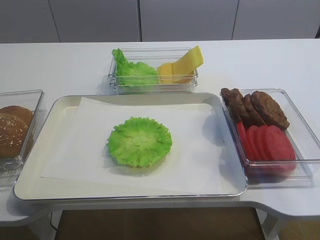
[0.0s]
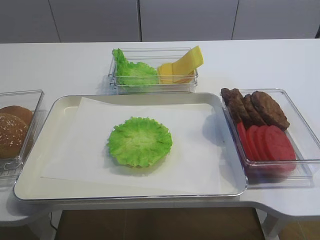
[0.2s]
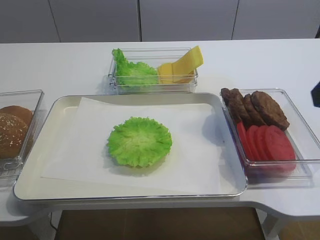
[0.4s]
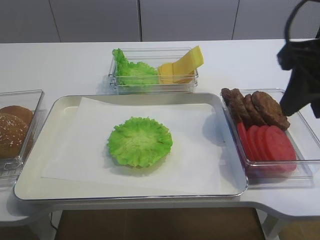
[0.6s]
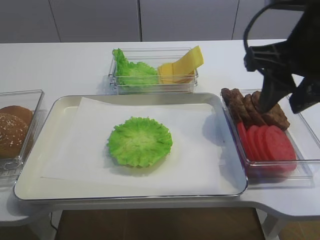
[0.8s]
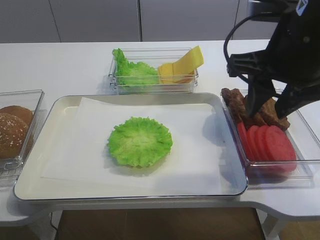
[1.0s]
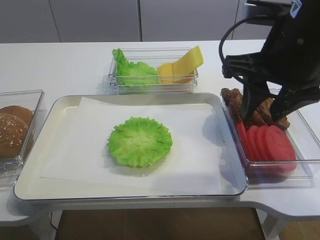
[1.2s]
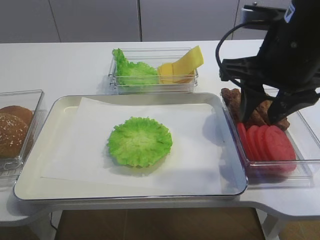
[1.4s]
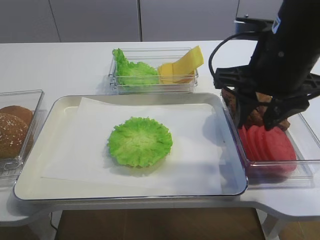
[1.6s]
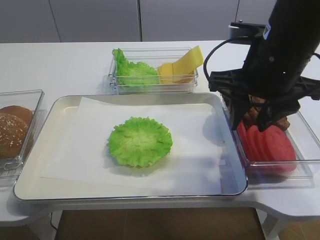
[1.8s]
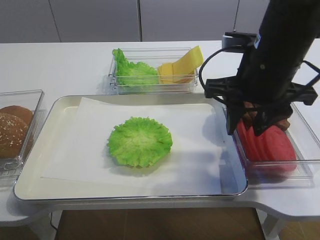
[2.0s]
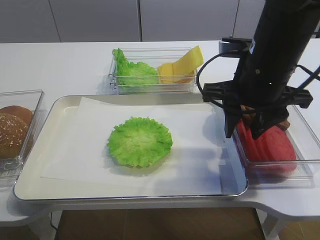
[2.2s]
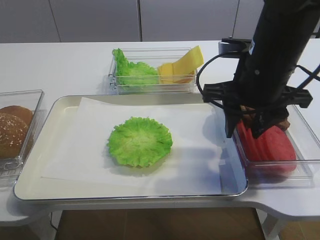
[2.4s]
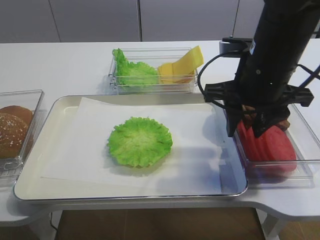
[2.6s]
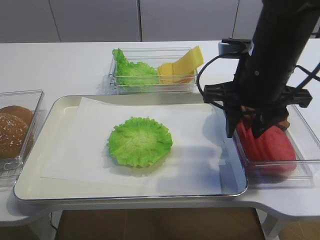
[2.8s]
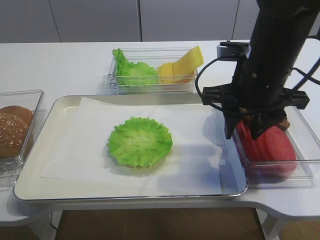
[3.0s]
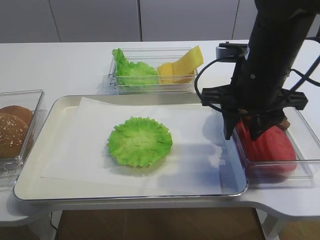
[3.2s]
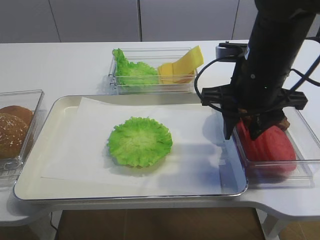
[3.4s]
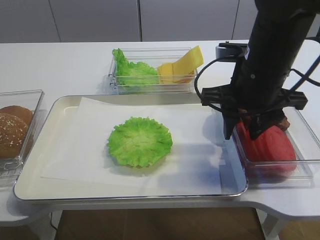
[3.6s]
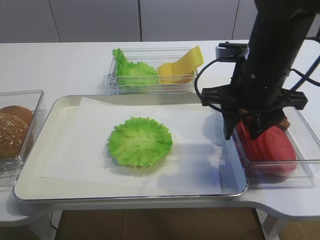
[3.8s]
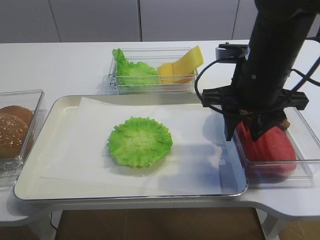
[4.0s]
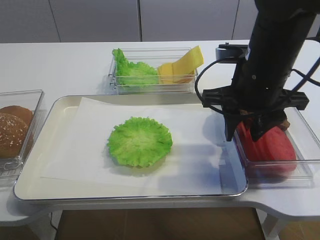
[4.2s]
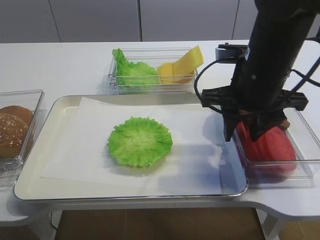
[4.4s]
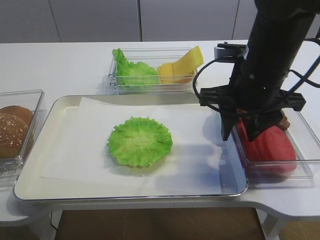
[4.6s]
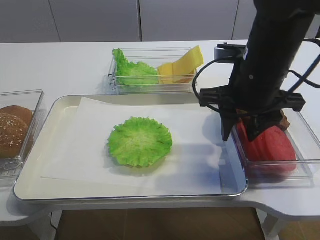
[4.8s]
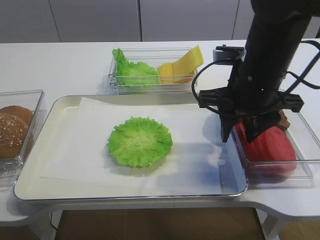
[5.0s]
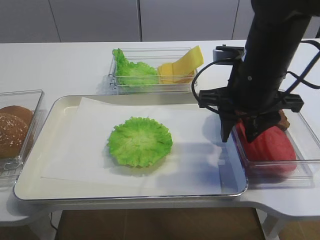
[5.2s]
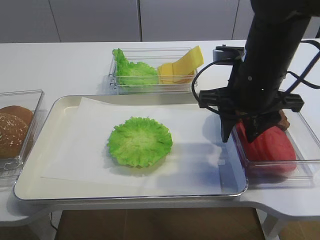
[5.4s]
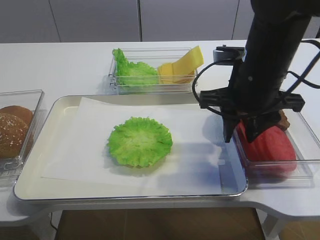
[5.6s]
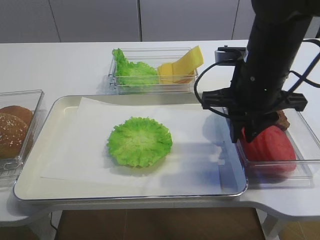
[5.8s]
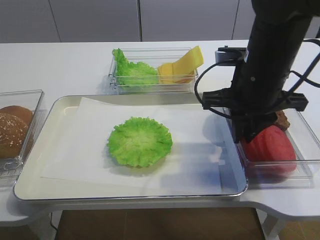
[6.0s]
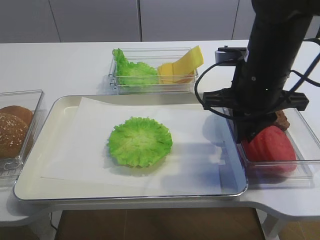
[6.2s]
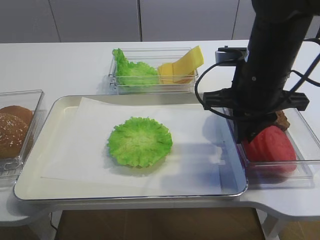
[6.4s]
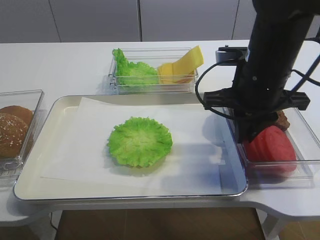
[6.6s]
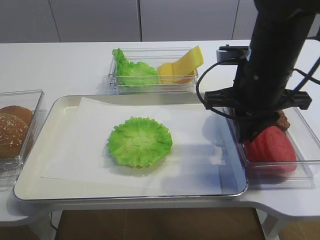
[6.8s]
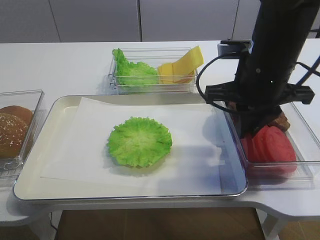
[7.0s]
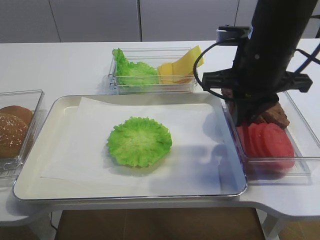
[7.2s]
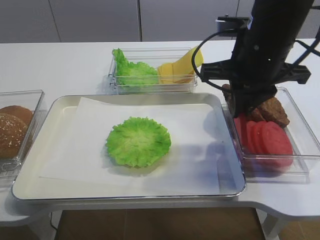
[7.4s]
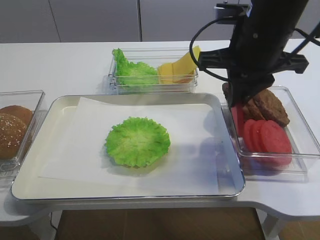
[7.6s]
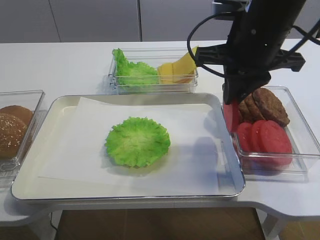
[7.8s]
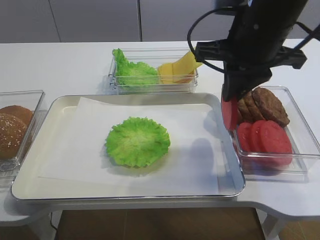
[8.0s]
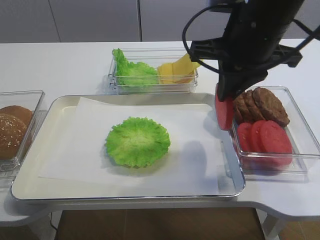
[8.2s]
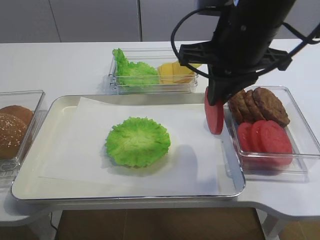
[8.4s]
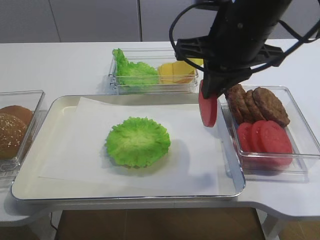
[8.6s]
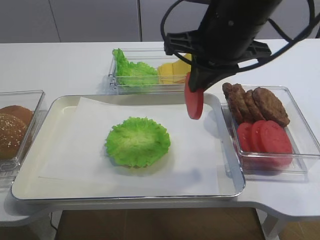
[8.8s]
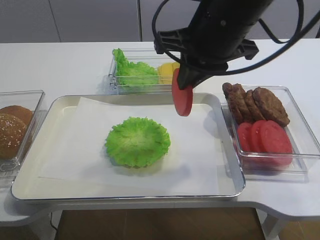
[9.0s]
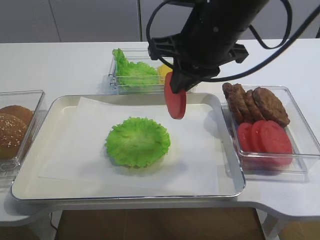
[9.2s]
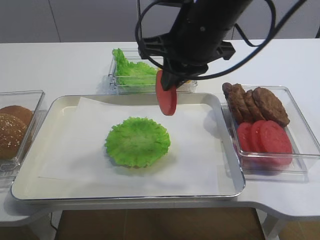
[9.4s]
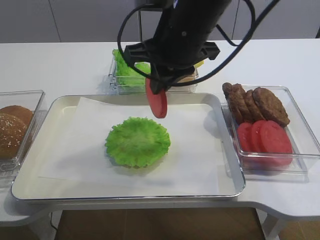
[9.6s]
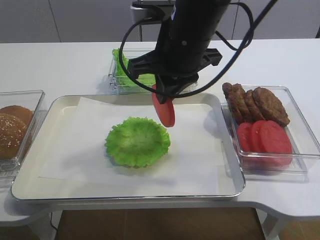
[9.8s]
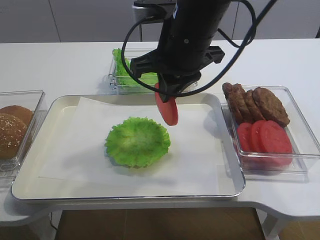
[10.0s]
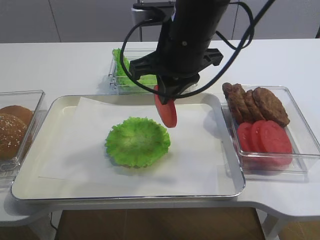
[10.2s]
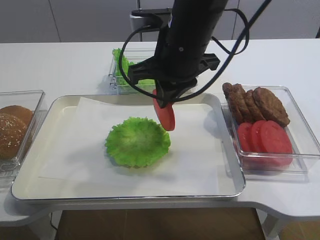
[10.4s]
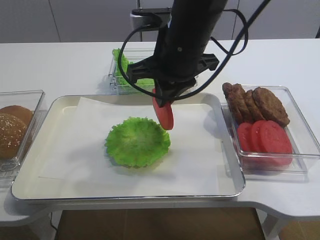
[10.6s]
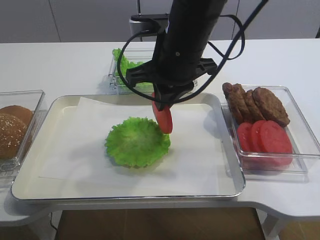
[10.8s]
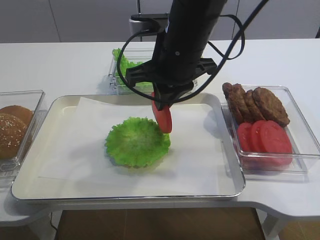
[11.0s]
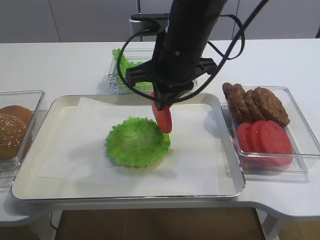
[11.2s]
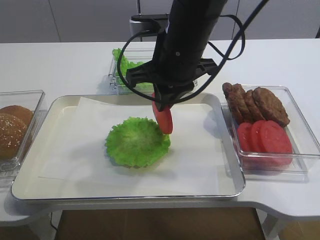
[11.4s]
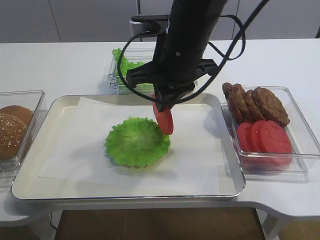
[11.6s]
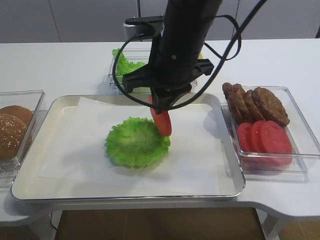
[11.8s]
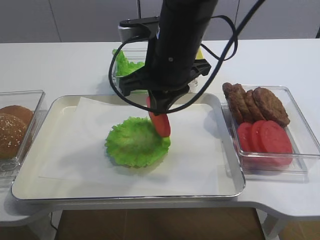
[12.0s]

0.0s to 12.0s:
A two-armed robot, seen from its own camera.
Step, 0.0s to 7.4s: Pick up the tomato slice with the right gripper.
0.0s to 1.6s: The right gripper travels forward and to the left by roughly 20 cm.
1.6s to 3.0s: The right gripper moves some 5 cm.
3.0s to 4.4s: Both grippers stay about where they are.
4.4s to 6.0s: The right gripper closes its fingers.
6.0s to 7.6s: The right gripper travels upward by about 5 cm.
7.6s to 9.0s: The right gripper changes place by approximately 5 cm.
9.0s to 10.4s: The right gripper shifts by some 5 cm.
10.4s to 12.0s: The grippers make only small movements.

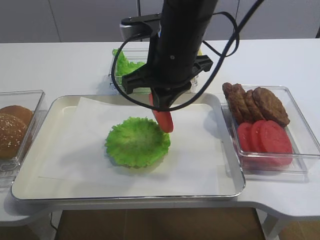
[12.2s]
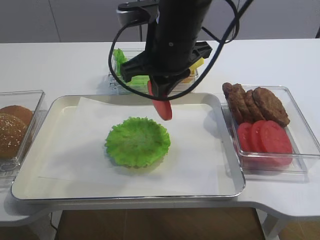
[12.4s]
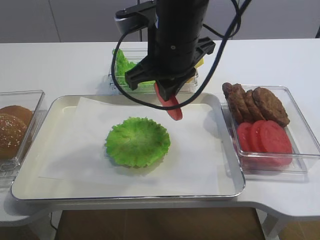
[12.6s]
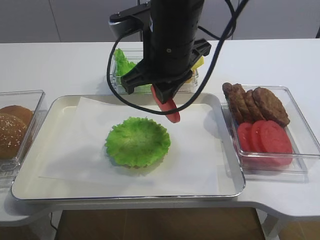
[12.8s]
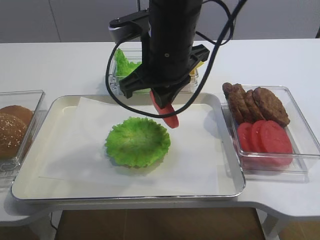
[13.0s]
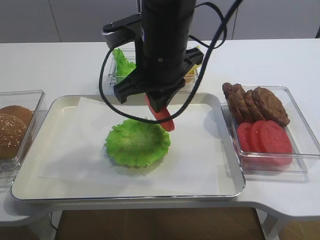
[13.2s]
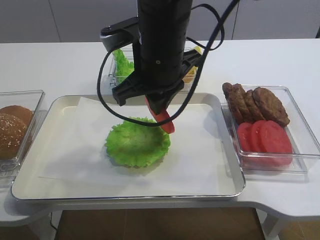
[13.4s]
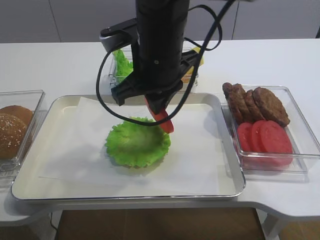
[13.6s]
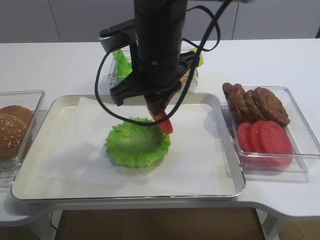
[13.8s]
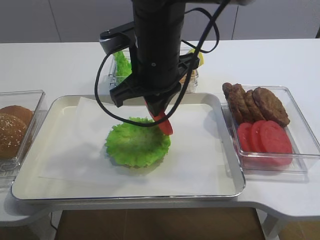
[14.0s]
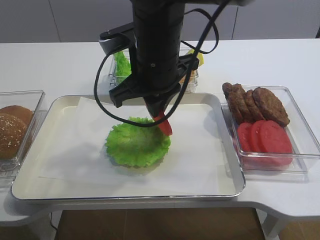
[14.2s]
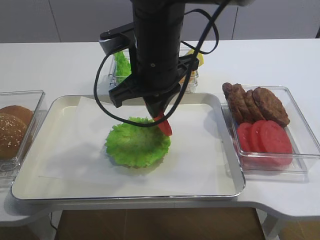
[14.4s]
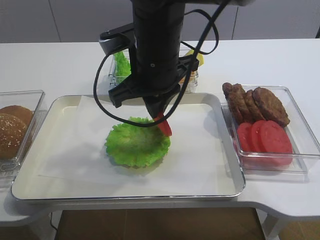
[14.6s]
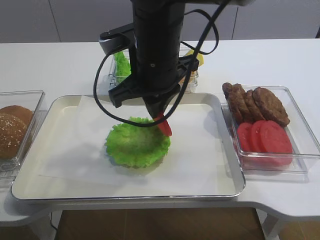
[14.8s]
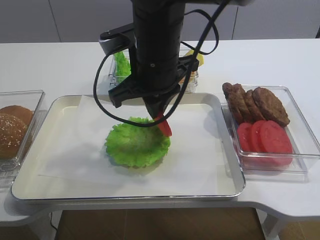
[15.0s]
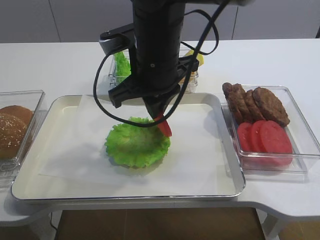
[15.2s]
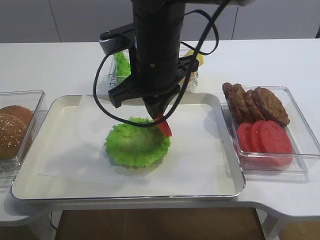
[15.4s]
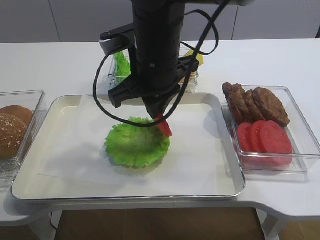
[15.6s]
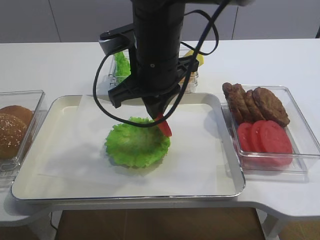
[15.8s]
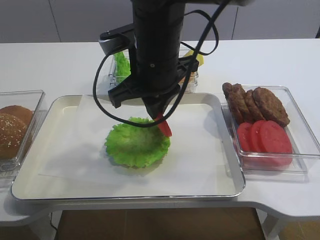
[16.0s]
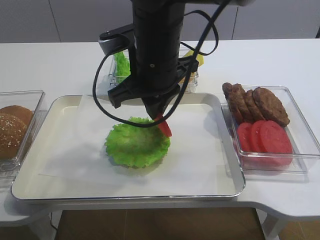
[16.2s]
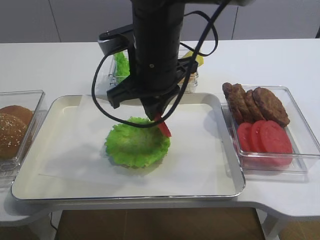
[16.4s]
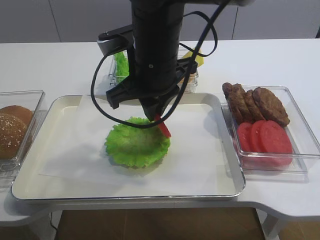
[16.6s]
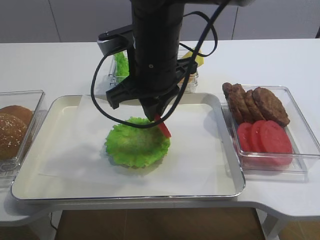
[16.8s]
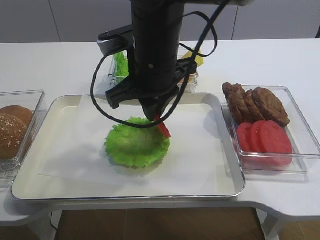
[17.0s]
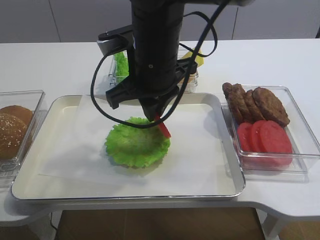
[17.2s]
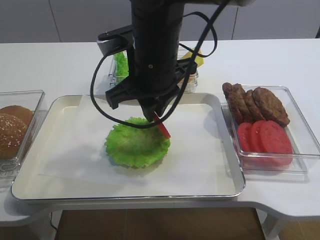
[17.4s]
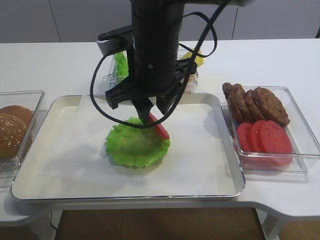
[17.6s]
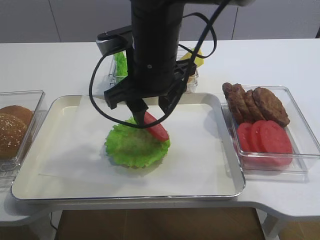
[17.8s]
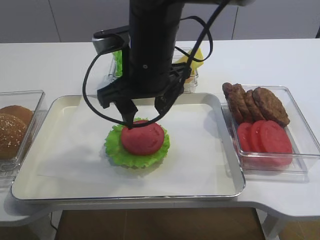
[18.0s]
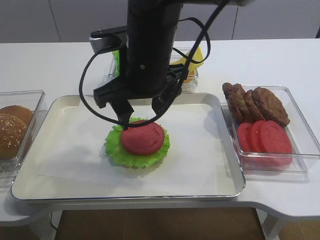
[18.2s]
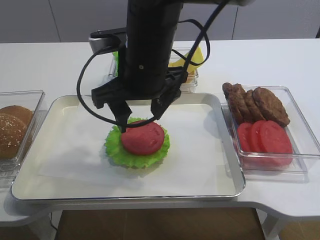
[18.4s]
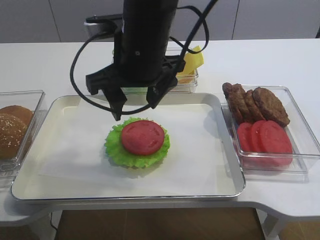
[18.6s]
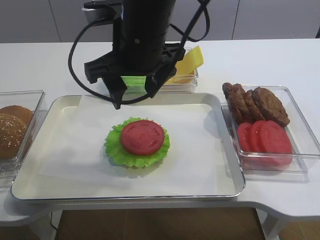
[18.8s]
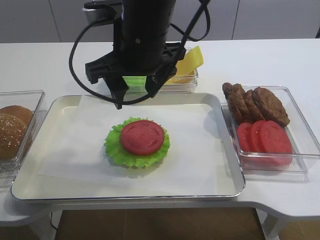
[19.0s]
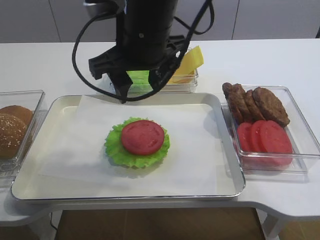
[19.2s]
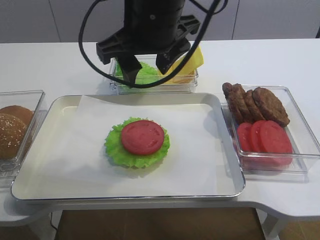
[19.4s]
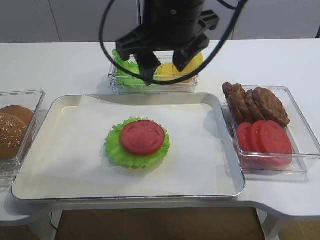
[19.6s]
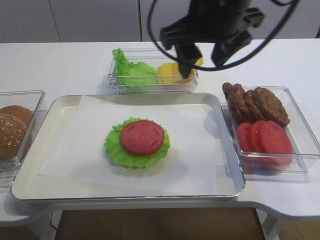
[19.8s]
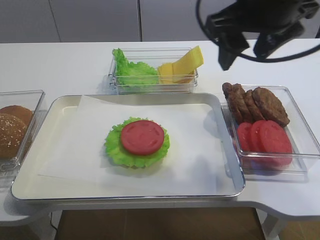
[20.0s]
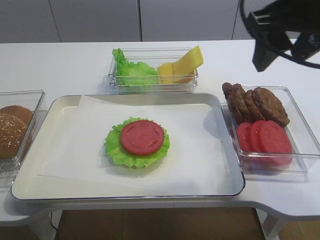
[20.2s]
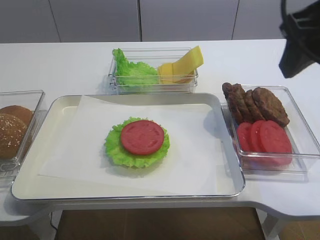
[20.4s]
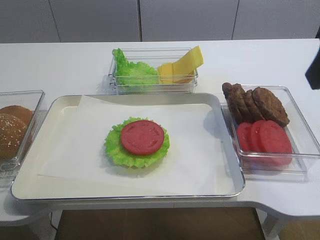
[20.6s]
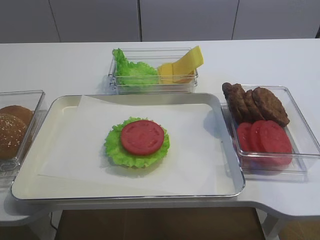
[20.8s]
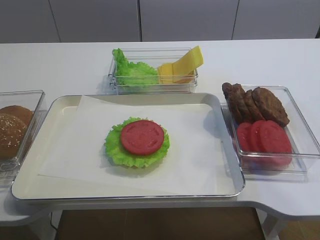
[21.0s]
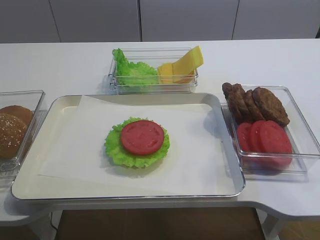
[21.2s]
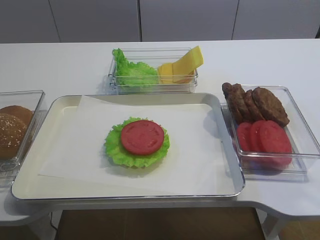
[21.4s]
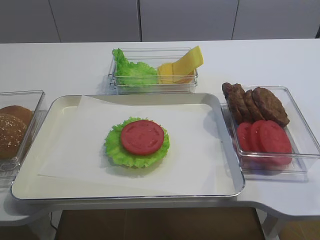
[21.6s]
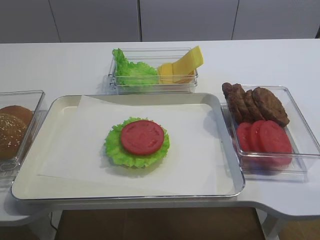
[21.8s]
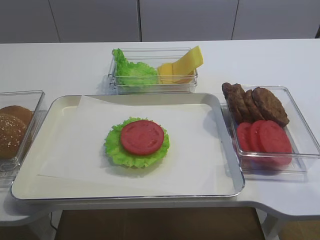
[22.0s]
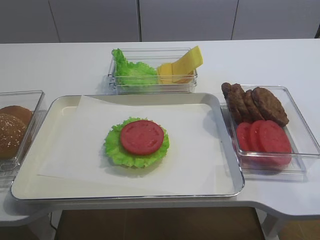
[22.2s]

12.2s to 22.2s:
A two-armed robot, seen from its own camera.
Step, 12.2s to 18.0s: Place the tomato slice on the lettuce leaf with the right gripper.
12.2s to 13.6s: The grippers stay close to where they were, moving slightly.
13.6s to 16.4s: The two grippers keep their place.
16.4s to 18.0s: The right gripper opens its fingers.
18.0s to 19.4s: The right gripper moves upward, about 5 cm.
19.4s to 20.8s: The right gripper travels to the right and backward by about 25 cm.
20.8s to 22.2s: The right gripper is displaced backward, downward and to the right by approximately 15 cm.
